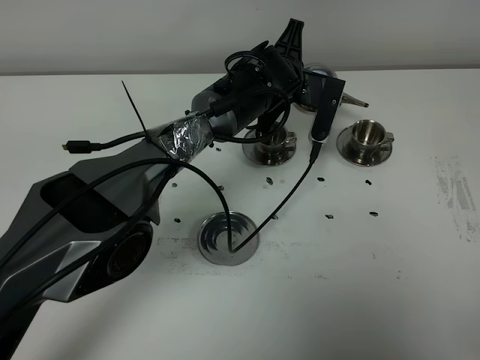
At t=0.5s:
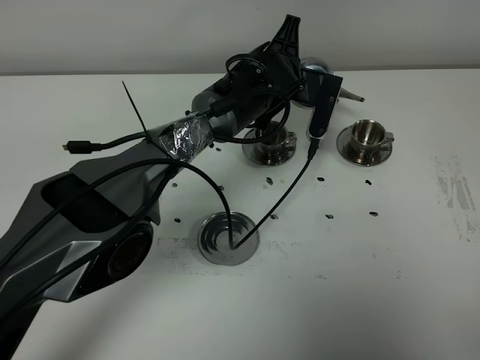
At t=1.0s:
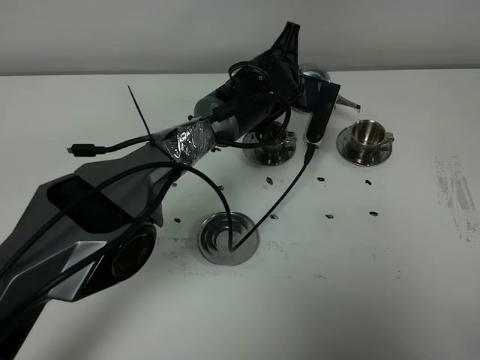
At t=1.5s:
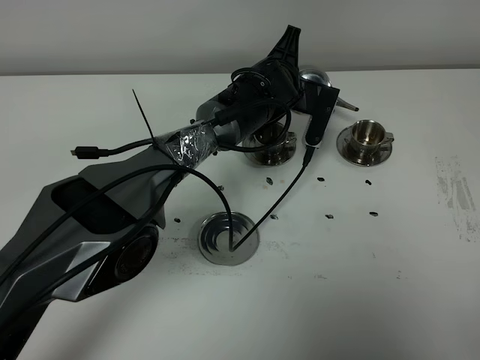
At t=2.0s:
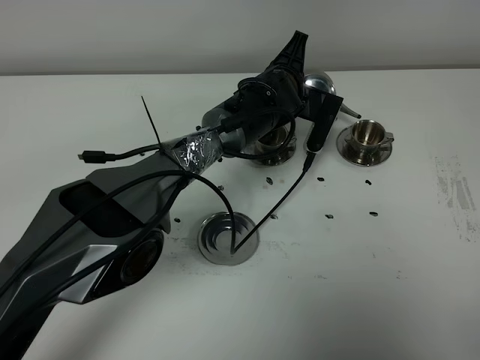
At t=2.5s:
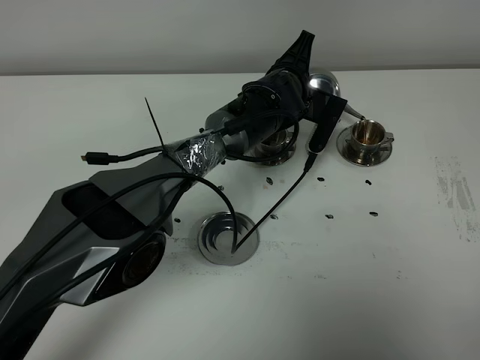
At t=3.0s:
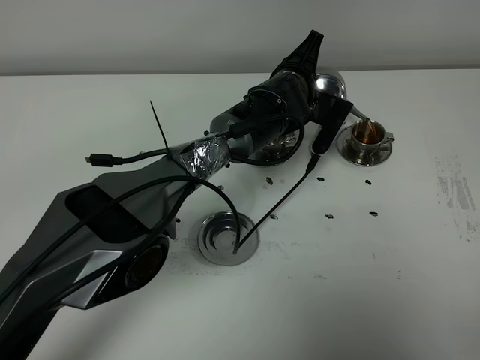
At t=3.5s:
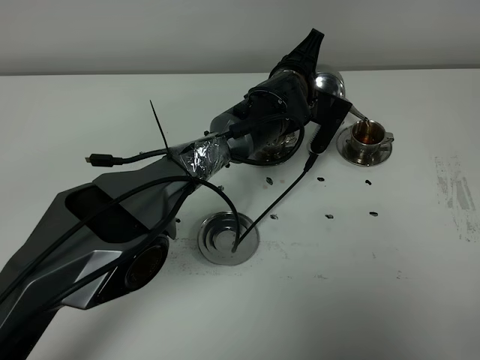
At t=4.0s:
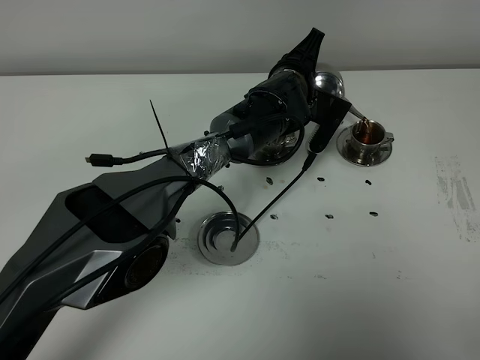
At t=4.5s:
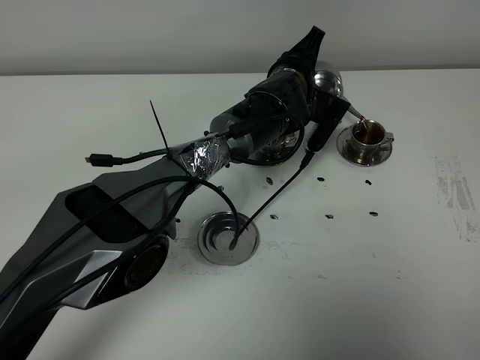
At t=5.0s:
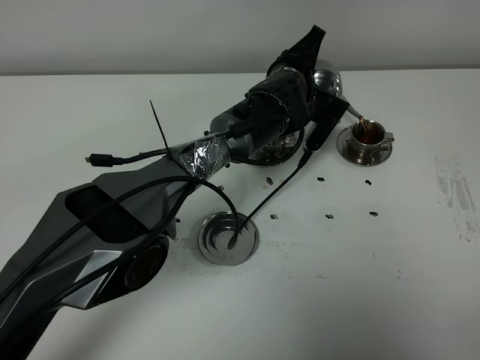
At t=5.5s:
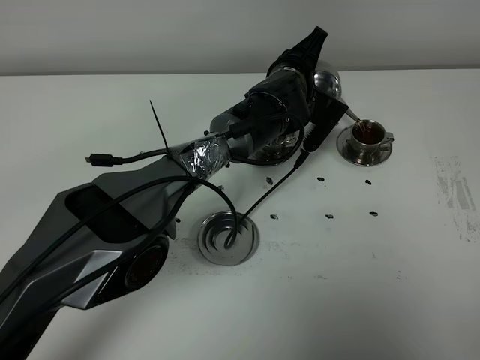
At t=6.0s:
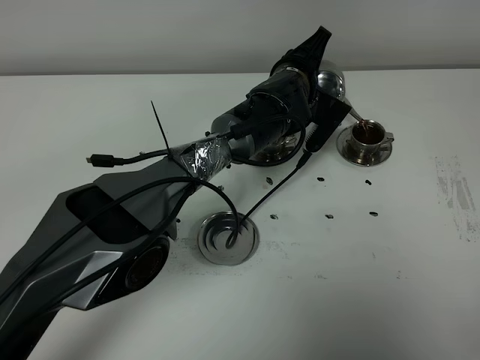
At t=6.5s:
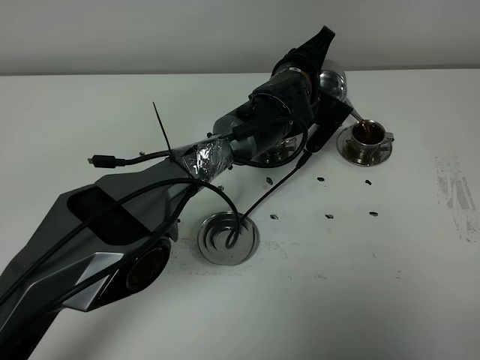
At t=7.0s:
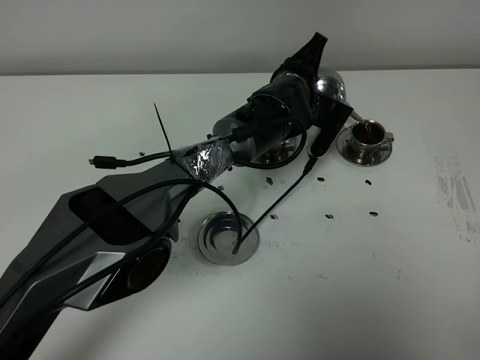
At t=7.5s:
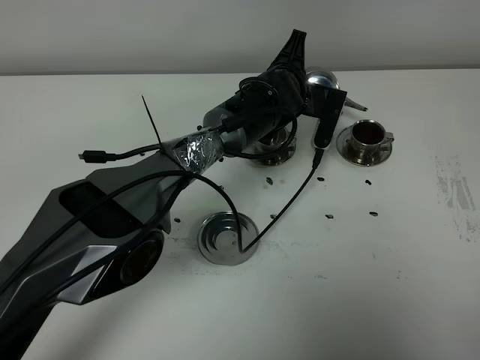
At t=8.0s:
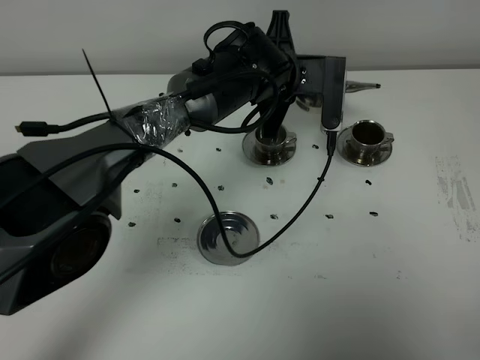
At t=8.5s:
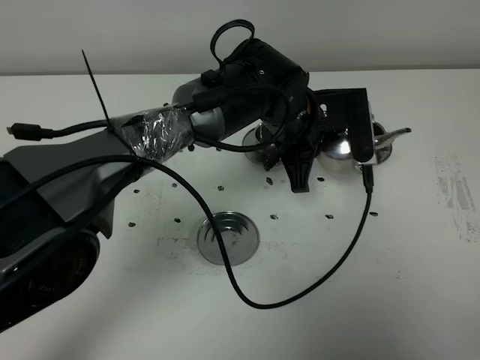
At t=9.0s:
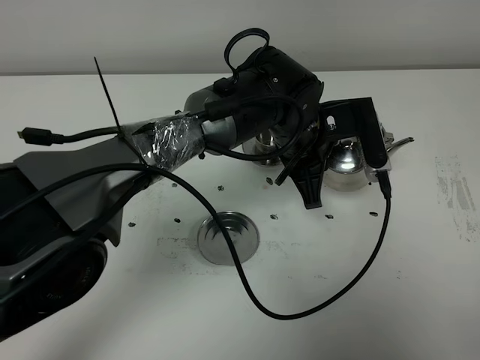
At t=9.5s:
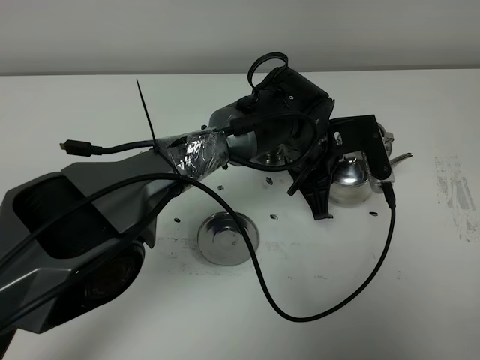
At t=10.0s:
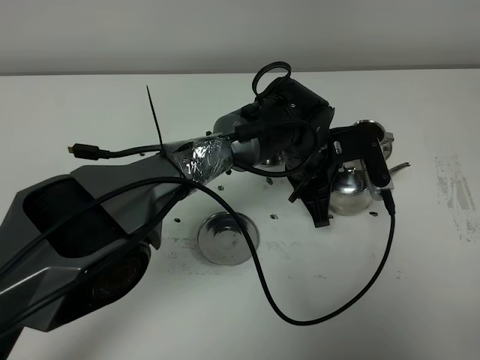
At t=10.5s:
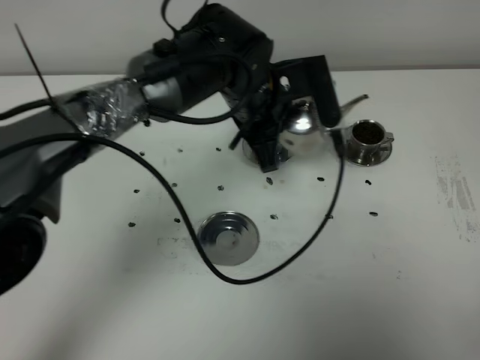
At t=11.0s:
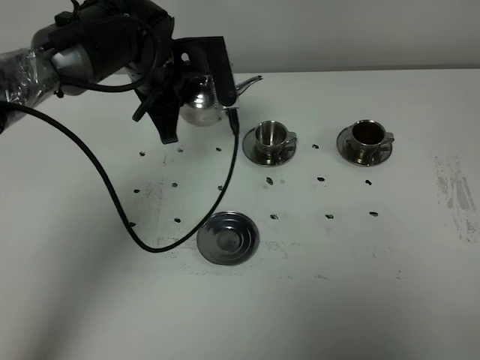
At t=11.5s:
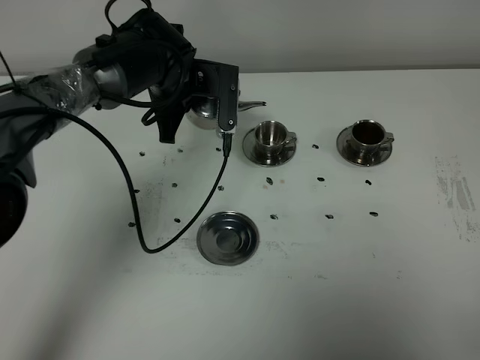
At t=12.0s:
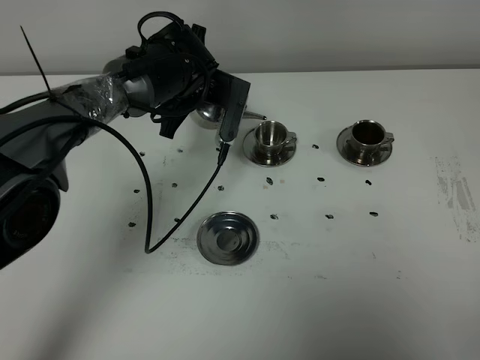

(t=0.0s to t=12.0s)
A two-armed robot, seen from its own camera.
Task of the whole recording: grasp the stainless steel teapot and pour the tea into the two stainless steel teacups one by one, put the stainless steel teapot back in its original place.
t=0.0s - t=4.0s: The grippers make only small movements.
t=4.0s - t=6.0s: The grippers stay close to where they were, moving slightly.
t=6.0s - t=8.0s: The left gripper is displaced upward by approximately 5 cm.
t=8.0s - t=10.0s: The left gripper shifts some 10 cm downward and backward.
t=10.0s - t=12.0s: The left gripper moves to the left and forward, about 20 cm.

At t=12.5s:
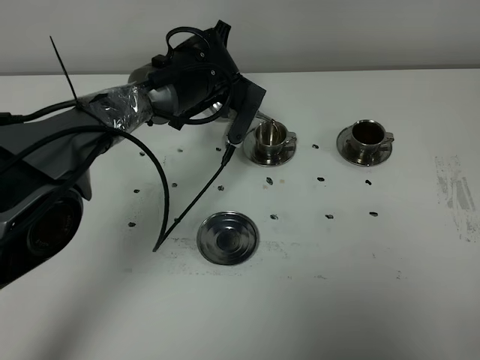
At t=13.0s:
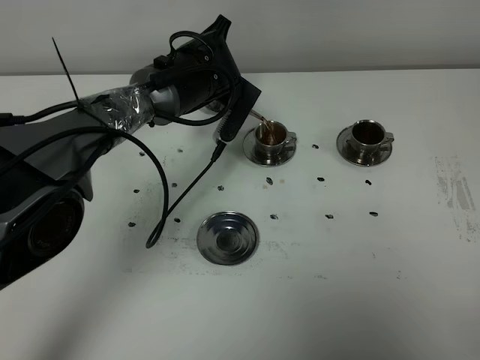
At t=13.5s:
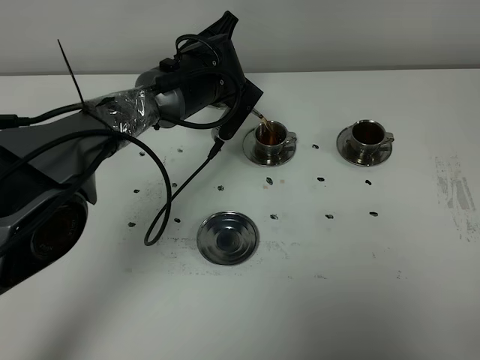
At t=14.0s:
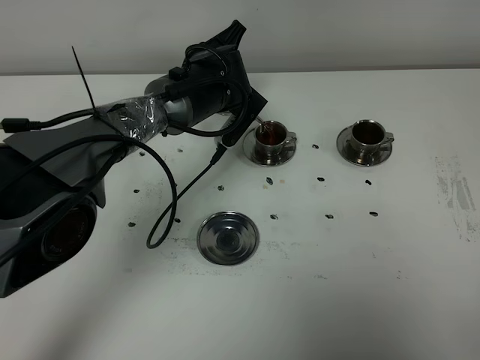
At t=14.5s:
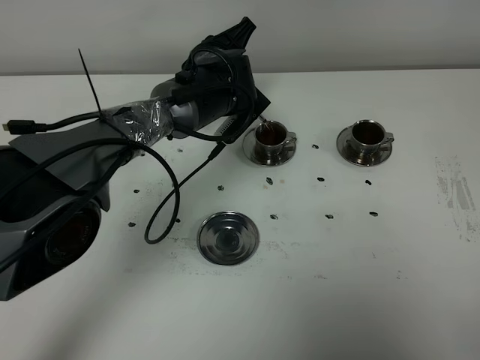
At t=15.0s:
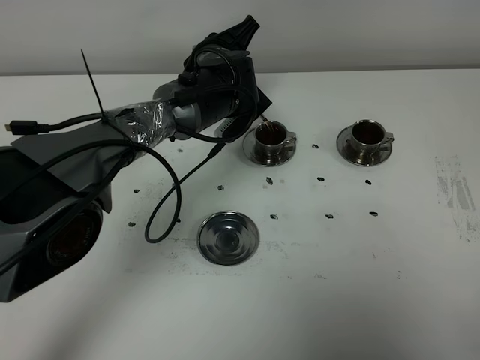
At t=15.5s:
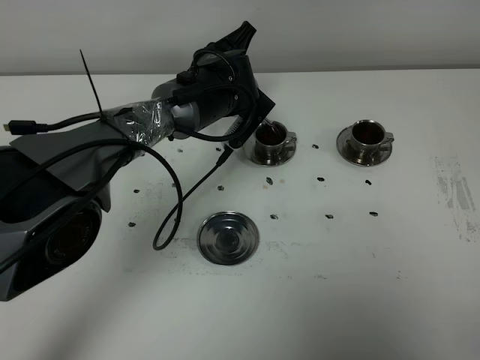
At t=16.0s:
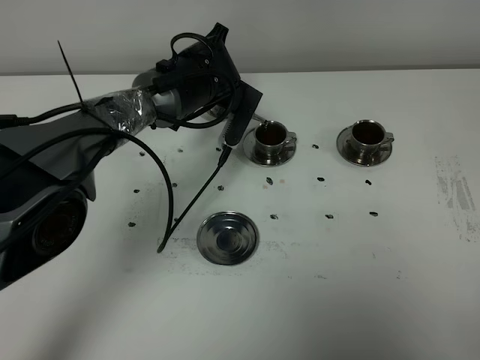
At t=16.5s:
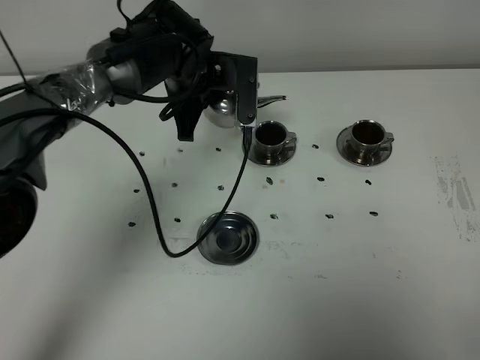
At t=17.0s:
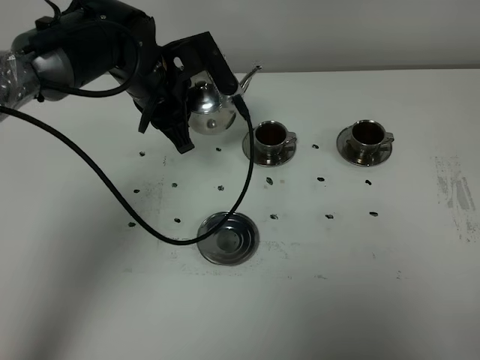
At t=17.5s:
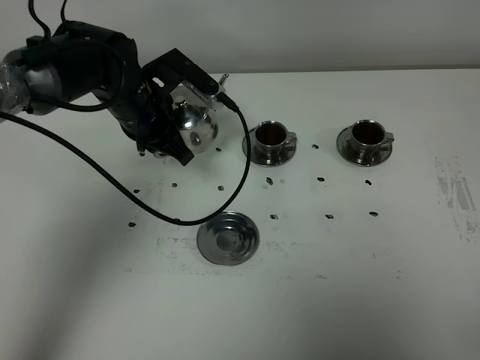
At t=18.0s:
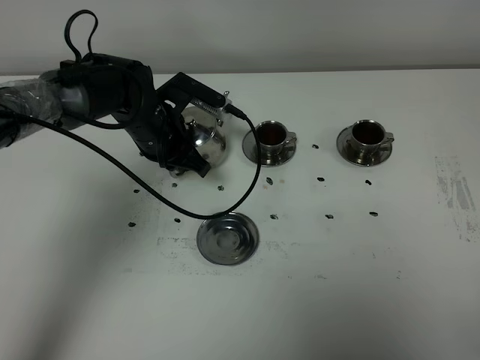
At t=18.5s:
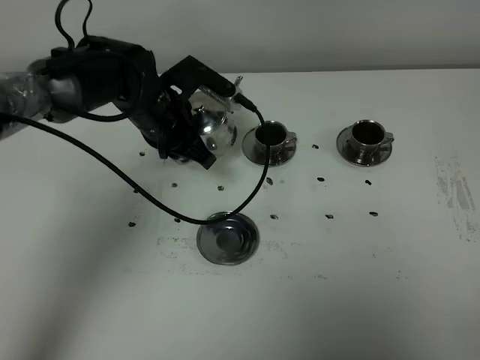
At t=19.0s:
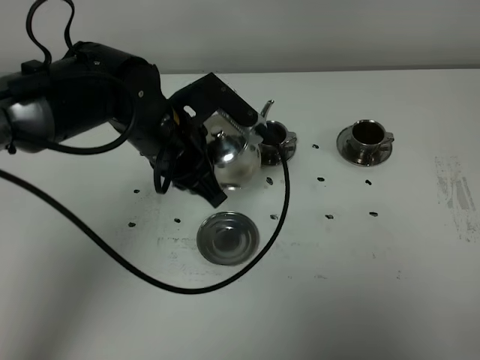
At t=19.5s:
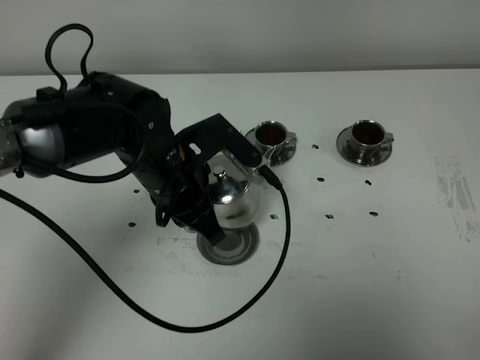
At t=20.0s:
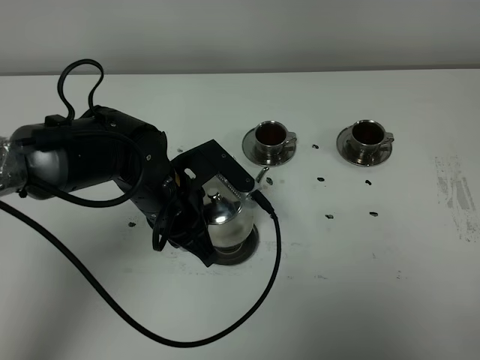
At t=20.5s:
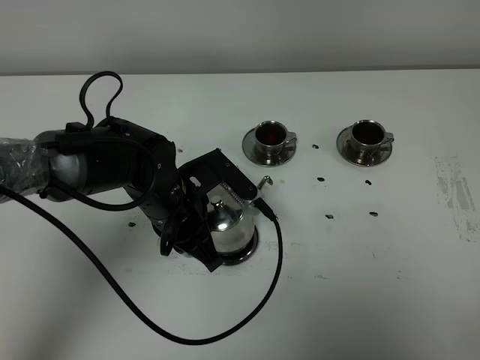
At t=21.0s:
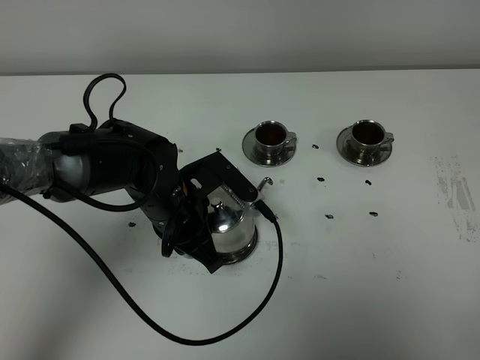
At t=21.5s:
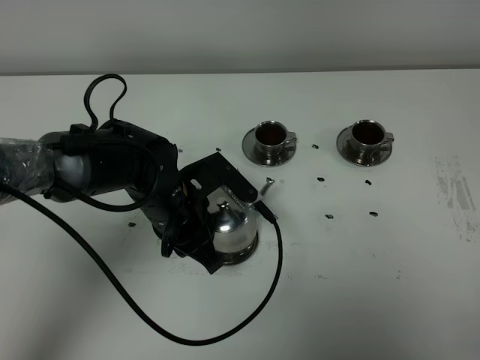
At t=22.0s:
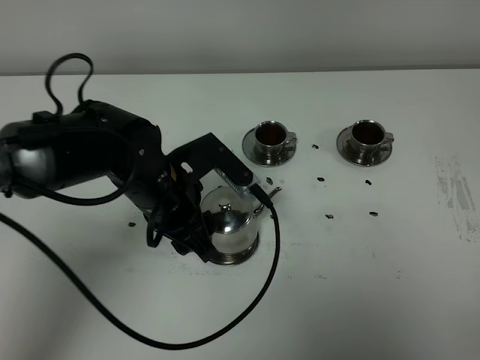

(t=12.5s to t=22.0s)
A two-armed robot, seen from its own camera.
Task of the whole recording: grasp the stainless steel teapot and pour the tea into the two stainless steel teacups one by one, put the stainless steel teapot back in its original place.
Step, t=12.5s - t=16.0s: Pour tea into the teacup with the left gripper.
t=14.5s - t=16.5s: The left gripper changes place by roughly 5 cm.
t=16.5s - t=18.0s: The left gripper shifts roughly 10 cm downward and to the left.
t=18.0s - t=20.0s: The left gripper goes roughly 15 cm backward.
t=20.0s - t=22.0s: The left gripper opens.

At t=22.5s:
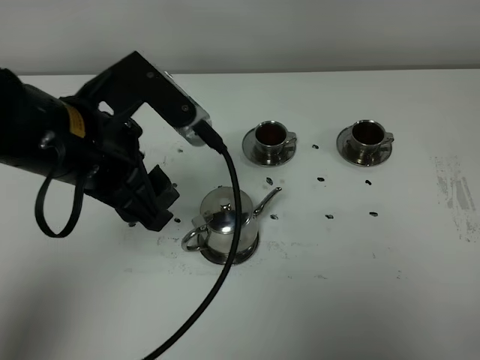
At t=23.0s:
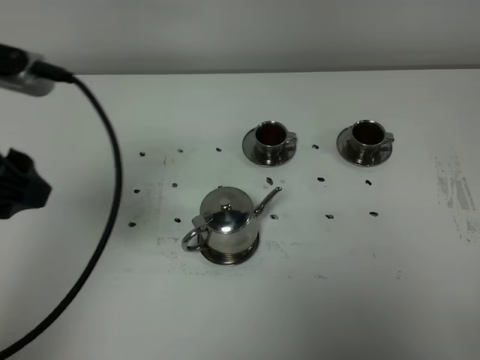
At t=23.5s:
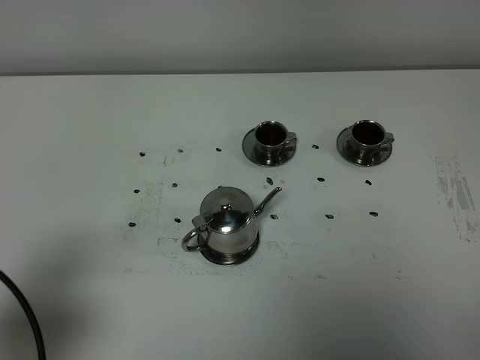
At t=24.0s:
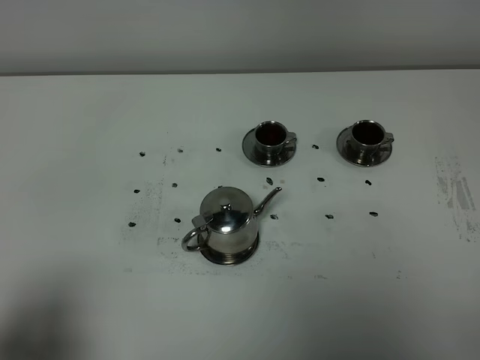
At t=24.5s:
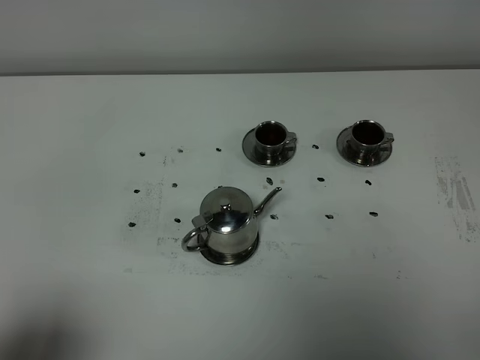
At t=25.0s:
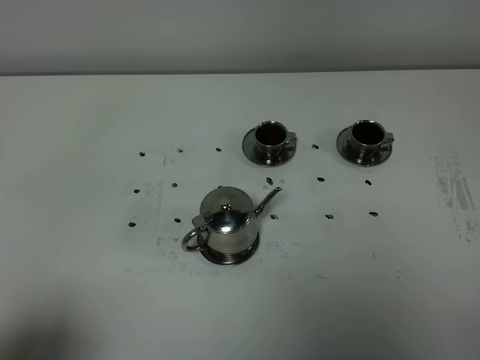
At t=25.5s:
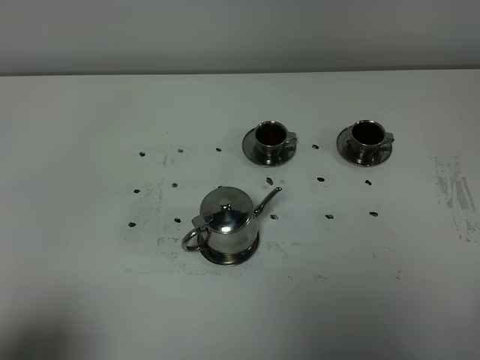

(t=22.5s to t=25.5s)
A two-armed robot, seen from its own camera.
Task of the whole recording: grasp the stainless steel teapot and pour the tea into the two stainless steel teacups one by one, put the stainless steel teapot back in its original place.
t=22.5s - t=24.0s: The left gripper is displaced backward and to the left by some 25 cm.
